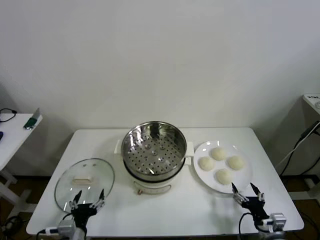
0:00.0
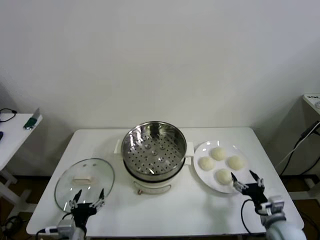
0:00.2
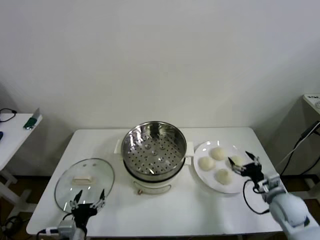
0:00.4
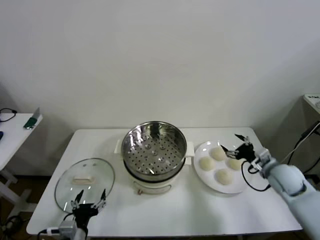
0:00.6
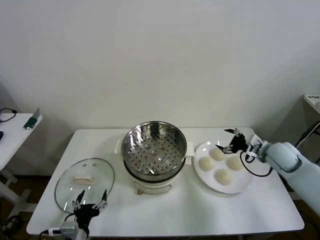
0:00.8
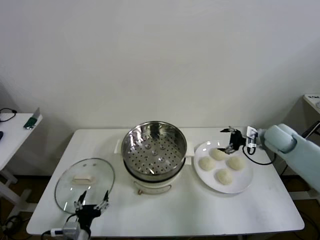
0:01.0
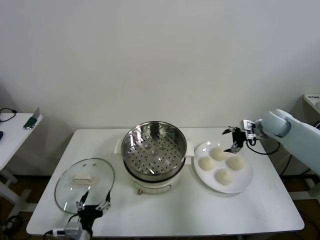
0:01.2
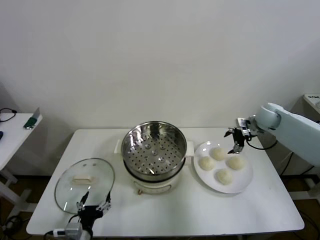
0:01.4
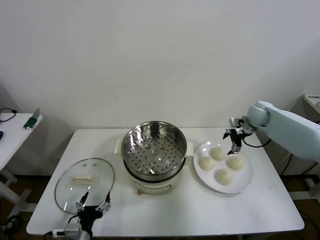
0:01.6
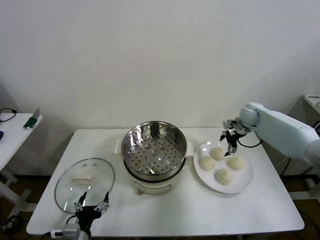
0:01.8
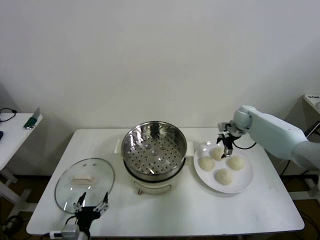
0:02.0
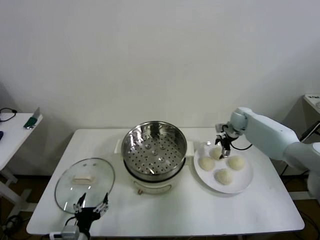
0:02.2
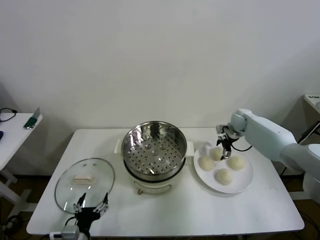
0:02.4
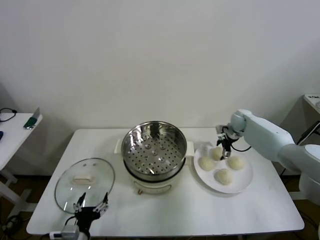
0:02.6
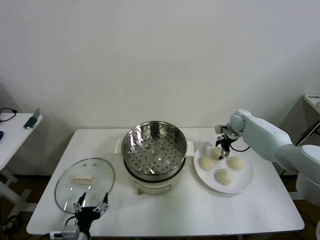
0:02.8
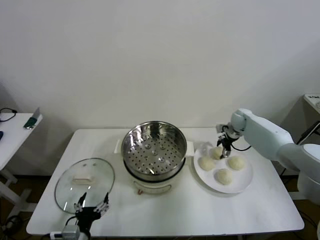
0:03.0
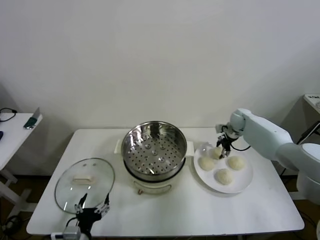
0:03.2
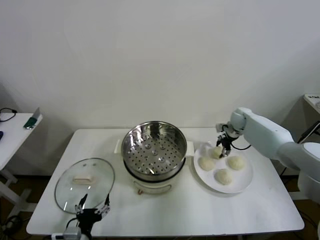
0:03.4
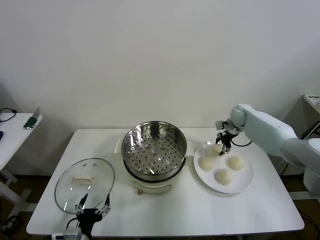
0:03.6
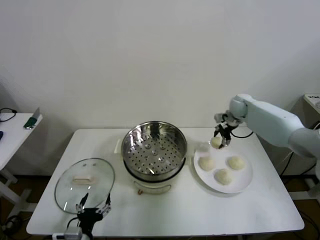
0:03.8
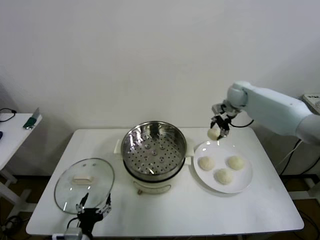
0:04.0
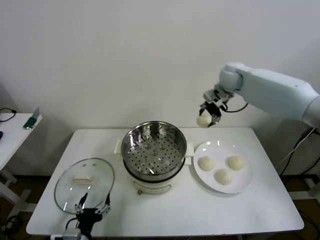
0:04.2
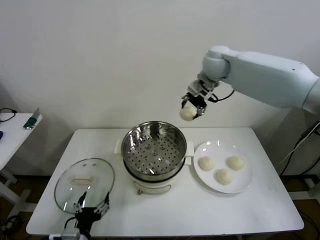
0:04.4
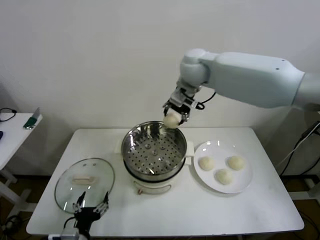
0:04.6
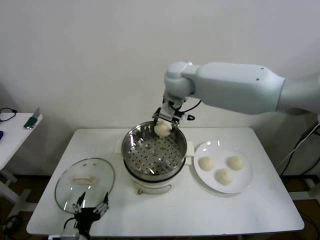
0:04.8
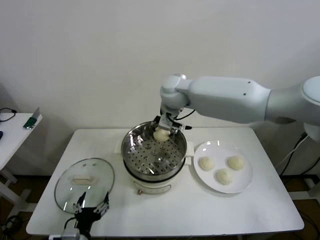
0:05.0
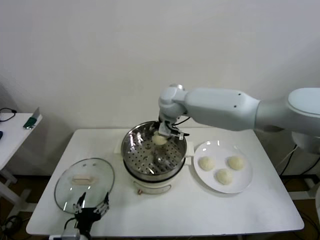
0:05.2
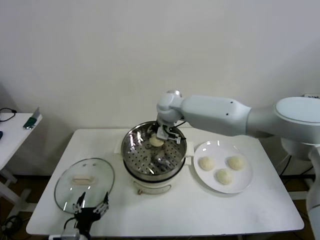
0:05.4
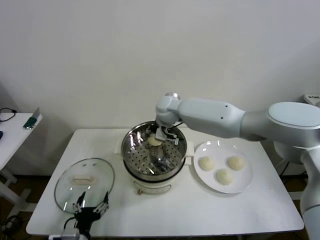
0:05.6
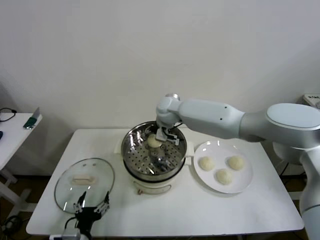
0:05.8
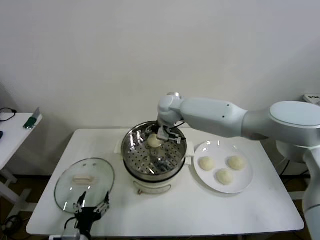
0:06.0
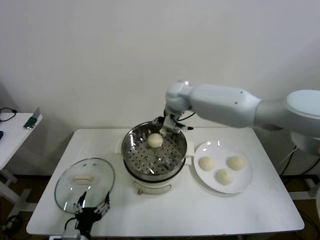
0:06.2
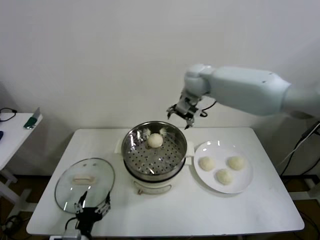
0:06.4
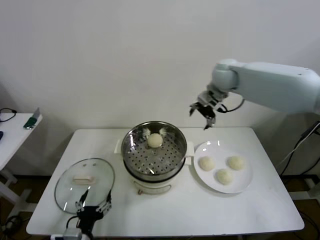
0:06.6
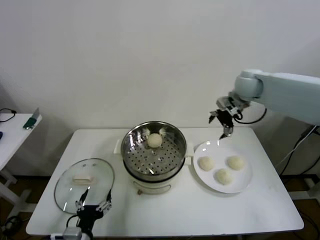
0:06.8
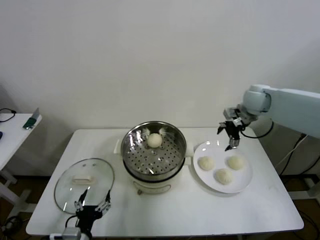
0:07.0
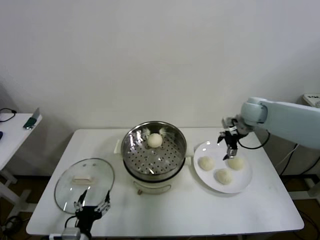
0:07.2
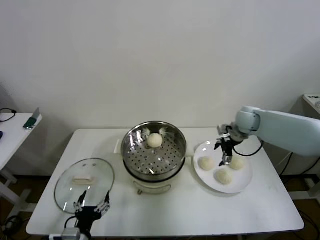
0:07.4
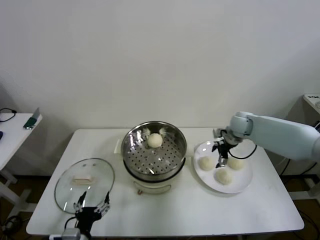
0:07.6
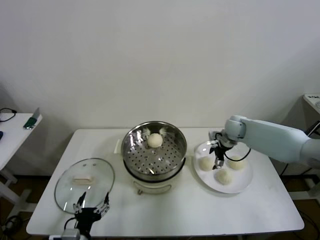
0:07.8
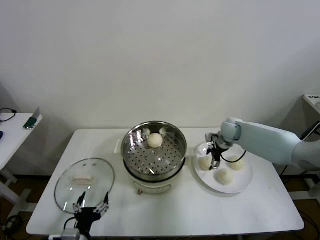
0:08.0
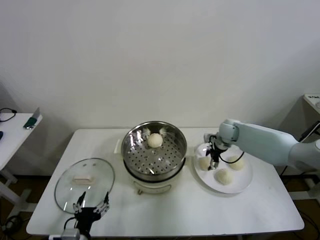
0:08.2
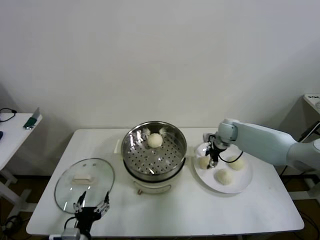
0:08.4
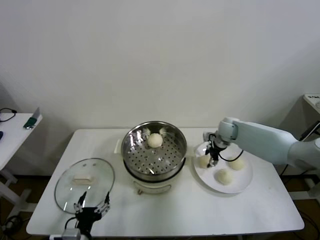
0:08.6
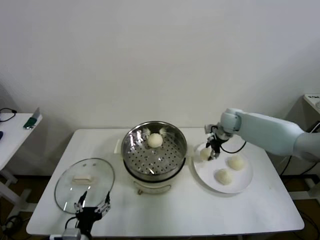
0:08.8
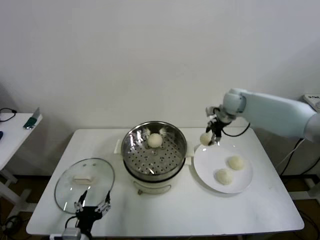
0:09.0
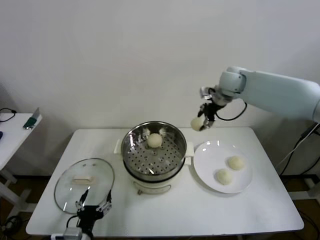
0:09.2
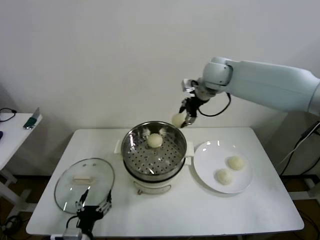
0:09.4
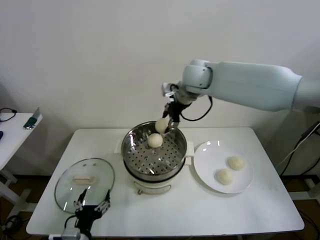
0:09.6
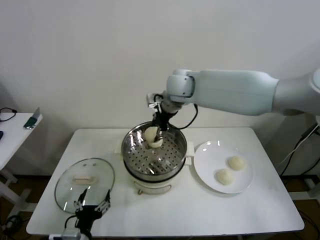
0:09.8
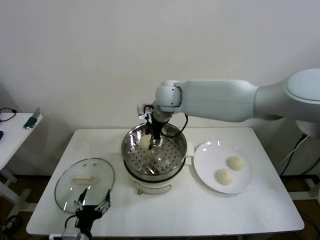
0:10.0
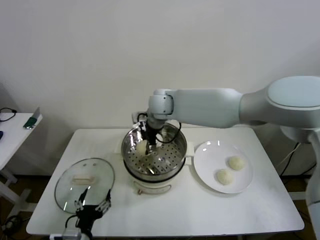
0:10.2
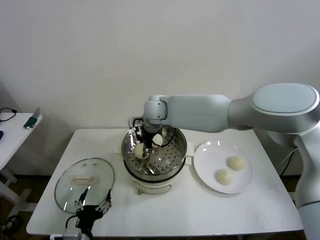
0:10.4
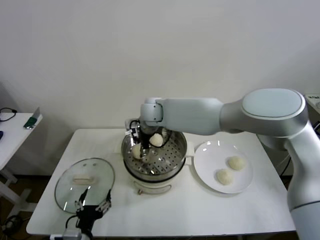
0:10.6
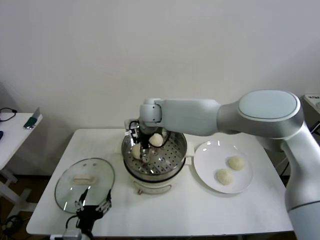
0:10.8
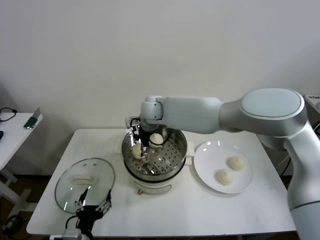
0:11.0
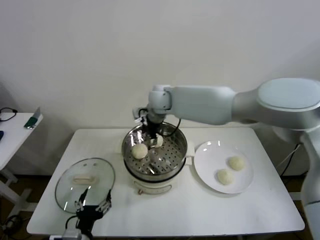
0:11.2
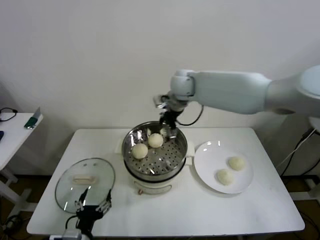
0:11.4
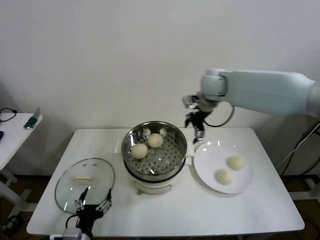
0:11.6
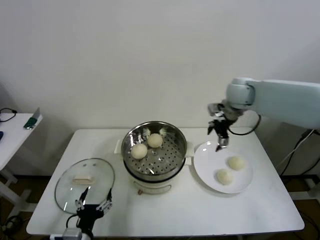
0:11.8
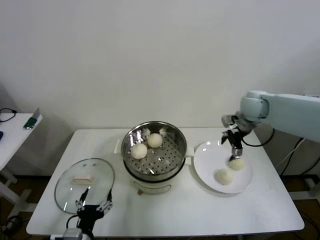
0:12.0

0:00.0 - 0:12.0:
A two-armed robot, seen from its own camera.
Step, 0:00.0 - 0:03.2: Grasp the baozi in the plate with right gripper.
Step, 0:03.4 - 0:05.8: Place the baozi on the steamer with right gripper.
Step, 0:06.0 - 0:08.4: Grasp the baozi in the plate with right gripper.
Step, 0:08.6 - 0:10.8: Place the baozi on the steamer with right gripper.
0:01.6 - 0:03.0: The right gripper is displaced downward by roughly 5 cm, and closes its fingers.
0:03.0 - 0:04.4: The right gripper travels upward and to the left by about 35 cm.
0:04.4 - 0:06.0: The right gripper moves downward and to the left, approximately 20 cm, and opens its fingers.
0:06.0 - 0:07.6: The right gripper travels to the right by roughly 25 cm.
0:07.6 - 0:09.0: The right gripper goes approximately 10 cm upward, and closes its fingers.
0:09.0 - 0:10.4: The right gripper travels to the left by approximately 30 cm.
0:10.4 - 0:12.0: The right gripper goes about 35 cm to the right, and opens its fingers.

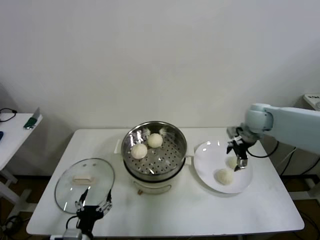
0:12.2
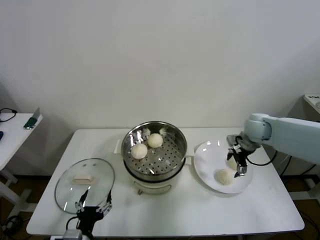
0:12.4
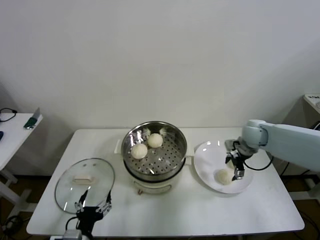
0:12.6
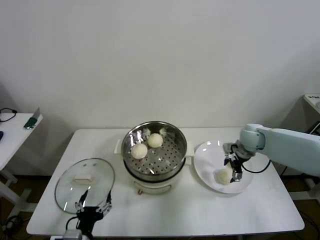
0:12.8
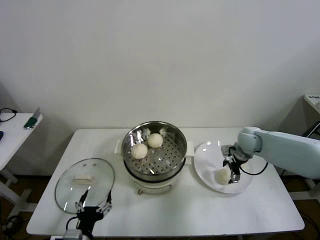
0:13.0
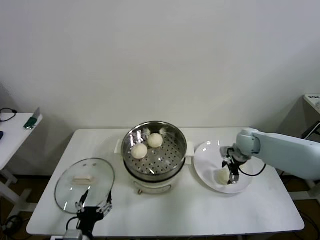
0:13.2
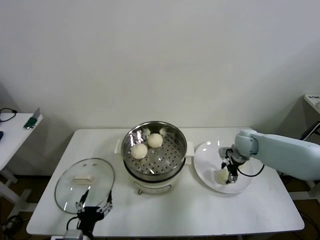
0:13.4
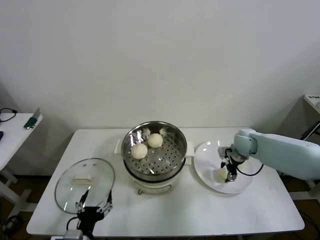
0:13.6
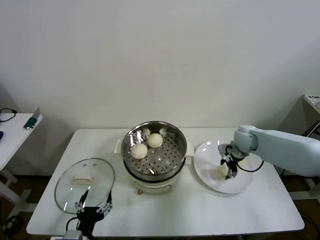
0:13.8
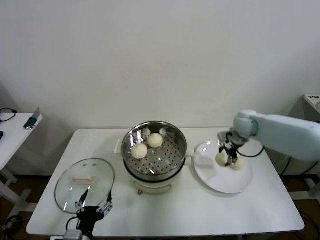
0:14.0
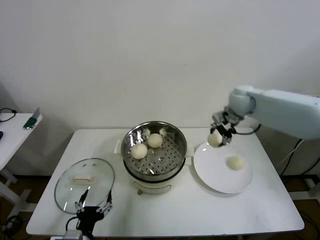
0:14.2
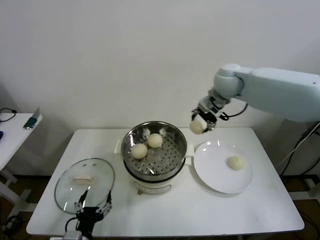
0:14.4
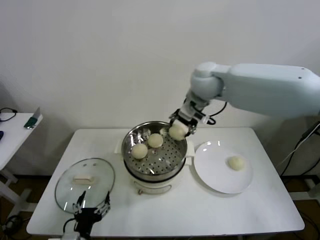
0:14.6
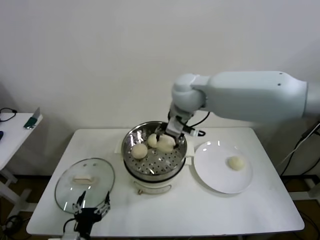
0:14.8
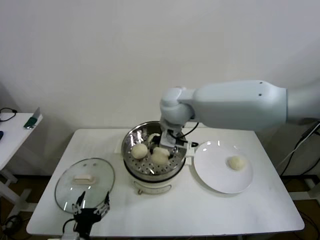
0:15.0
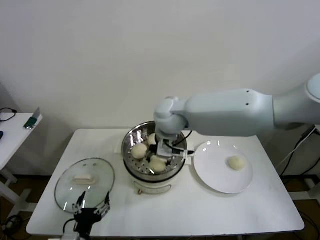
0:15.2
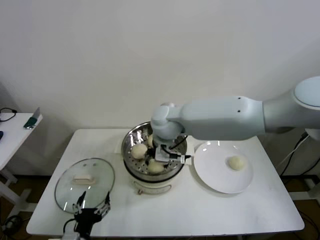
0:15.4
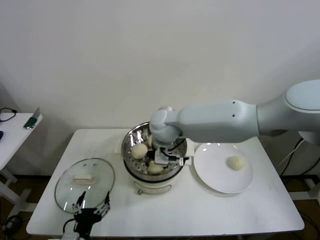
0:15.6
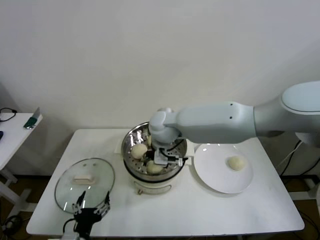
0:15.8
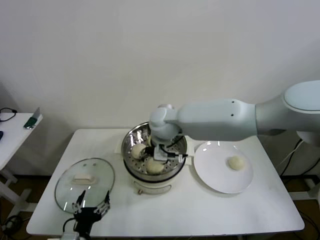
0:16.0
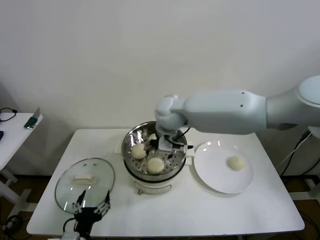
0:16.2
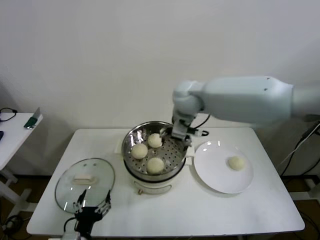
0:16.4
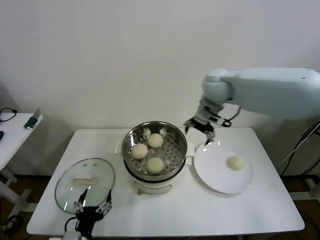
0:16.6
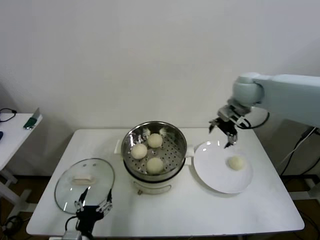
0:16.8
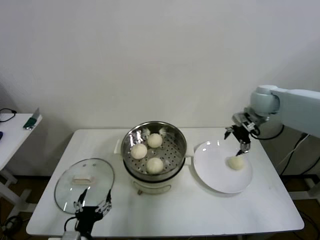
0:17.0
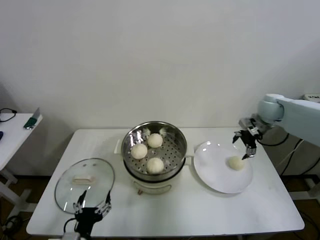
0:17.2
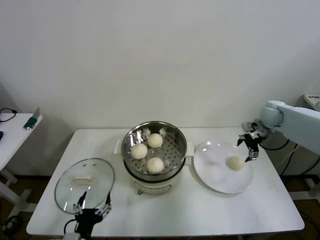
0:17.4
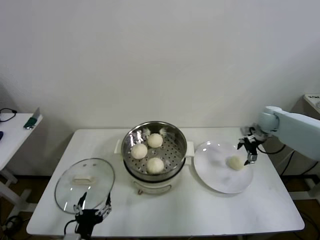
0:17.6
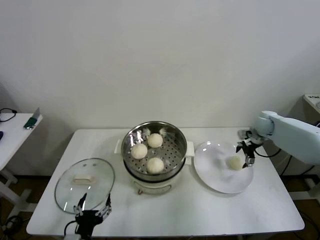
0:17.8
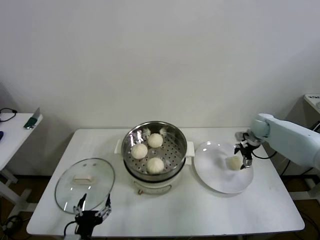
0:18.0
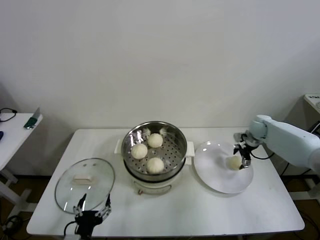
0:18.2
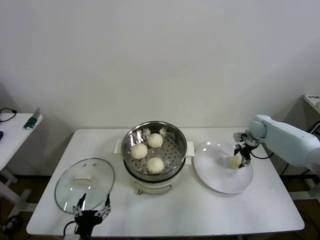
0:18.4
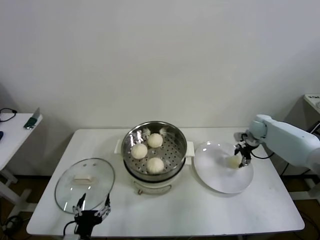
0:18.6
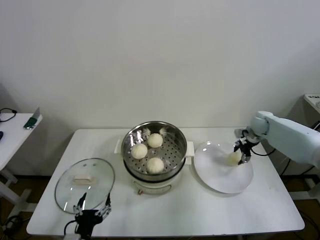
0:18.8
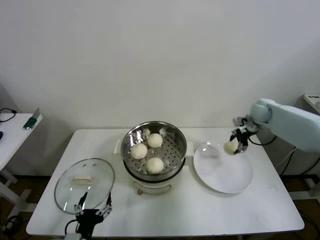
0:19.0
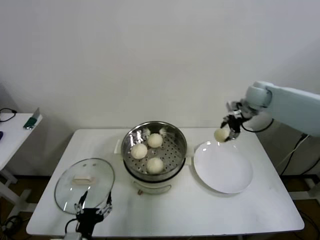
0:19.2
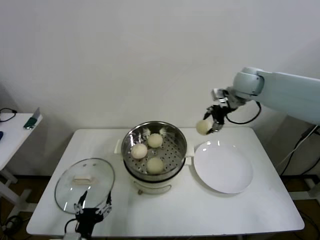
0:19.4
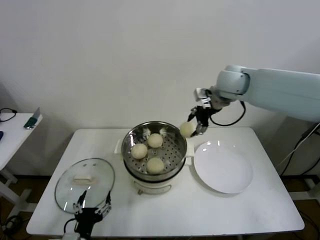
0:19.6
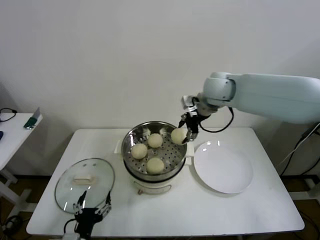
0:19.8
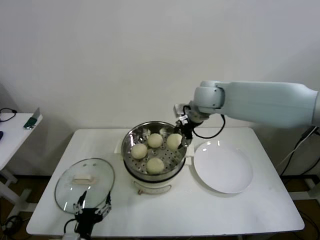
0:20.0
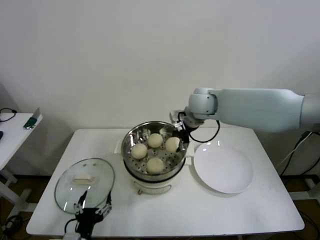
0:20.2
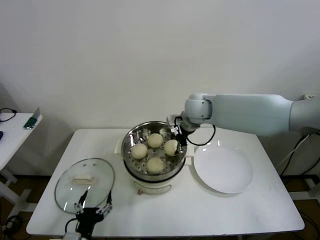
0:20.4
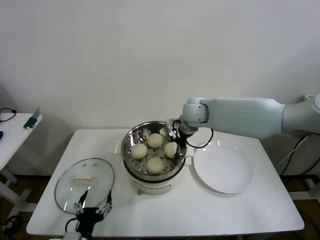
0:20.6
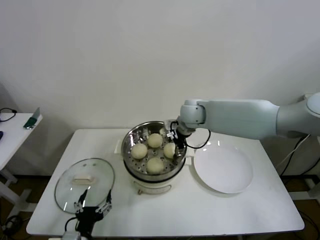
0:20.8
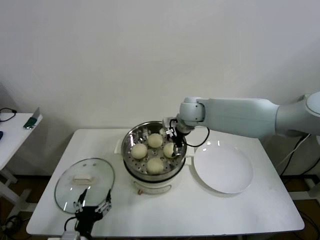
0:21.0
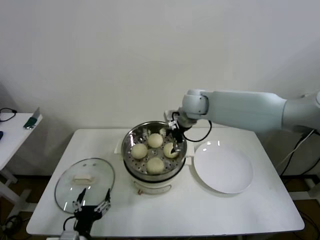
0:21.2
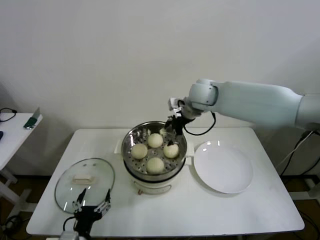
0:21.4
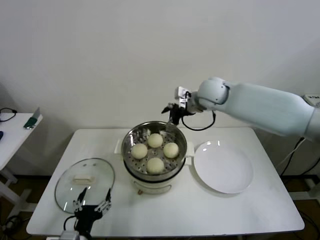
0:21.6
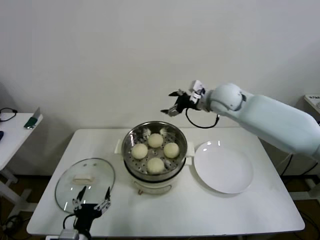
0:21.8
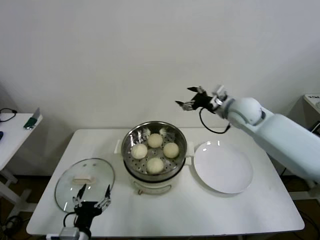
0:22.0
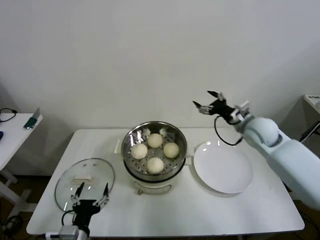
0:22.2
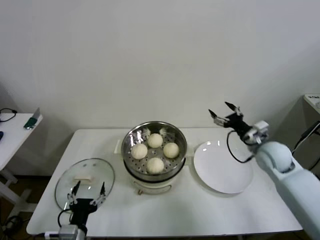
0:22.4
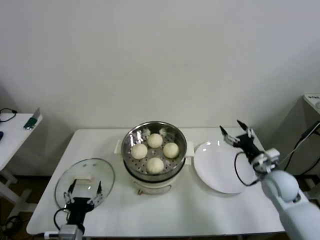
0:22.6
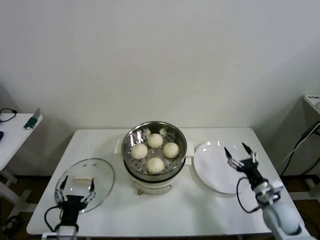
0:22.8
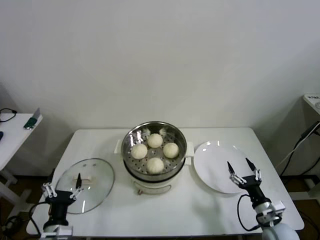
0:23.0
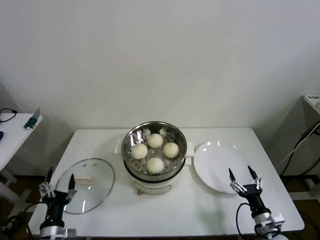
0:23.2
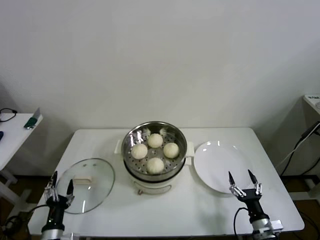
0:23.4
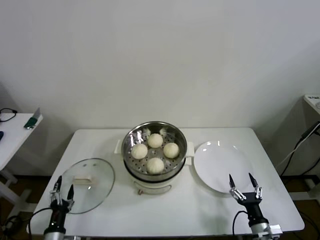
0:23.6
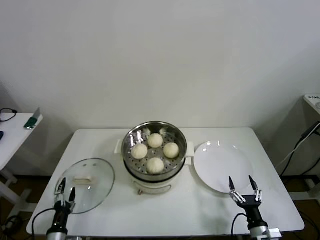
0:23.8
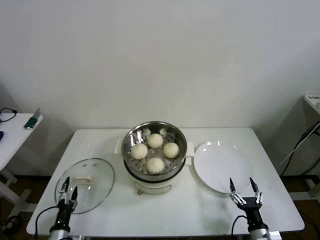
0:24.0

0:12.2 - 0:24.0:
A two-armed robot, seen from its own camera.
Step, 0:12.2 - 0:13.4: Grasp the baozi in the plate with right gripper.
Step, 0:13.6 - 0:15.8: Place the baozi on the steamer with right gripper.
Step, 0:16.0 - 0:18.4: Grasp the baozi in the plate with right gripper.
Step, 0:18.8 - 0:20.6: Place the baozi on the steamer with right gripper.
0:12.2 - 0:13.6: The right gripper heads downward, covering some 10 cm, and closes its fingers.
0:13.6 - 0:15.2: The right gripper moves to the left and upward, some 35 cm.
0:15.2 - 0:16.6: The right gripper heads to the right and forward, covering some 15 cm, and opens.
0:16.6 - 0:18.2: The right gripper goes approximately 35 cm to the right and downward.
0:18.2 - 0:19.6: The right gripper goes some 30 cm upward and to the left, and closes up.
0:19.6 - 0:21.0: The right gripper goes some 15 cm downward and to the left, and opens up.
0:21.0 - 0:22.6: The right gripper is displaced to the right, backward and downward by about 35 cm.
0:22.6 - 0:24.0: The right gripper moves backward and downward, roughly 25 cm. The left gripper travels downward and to the left by roughly 15 cm.
